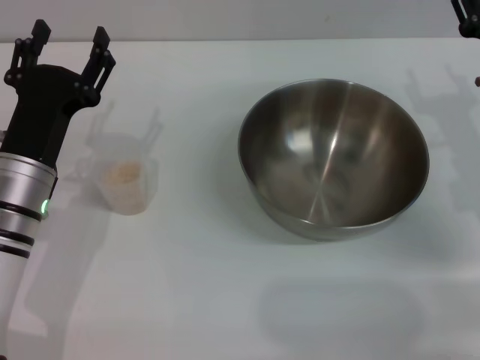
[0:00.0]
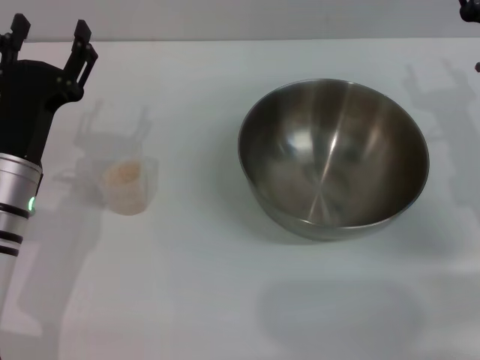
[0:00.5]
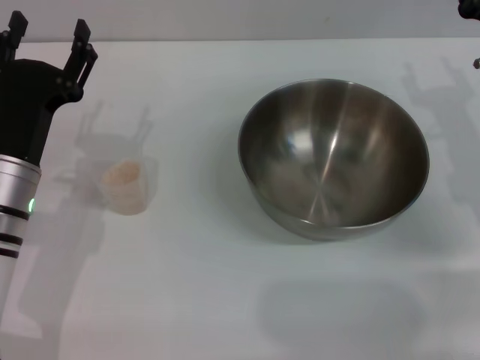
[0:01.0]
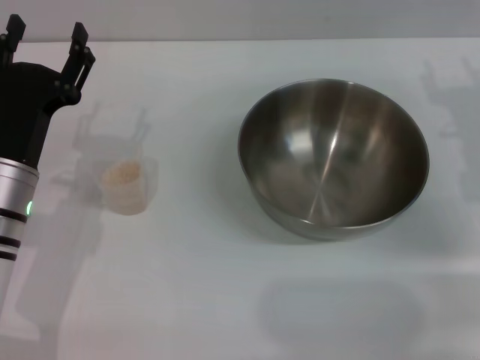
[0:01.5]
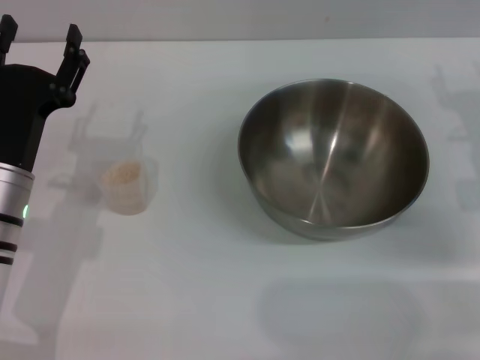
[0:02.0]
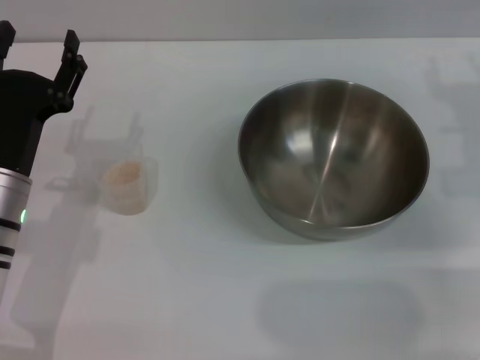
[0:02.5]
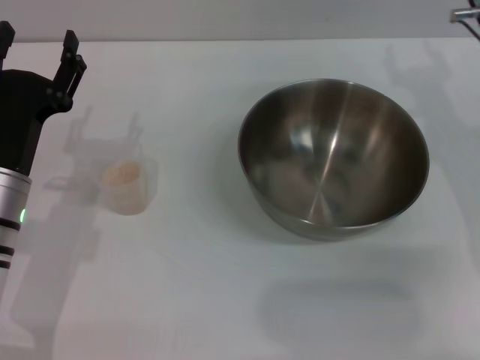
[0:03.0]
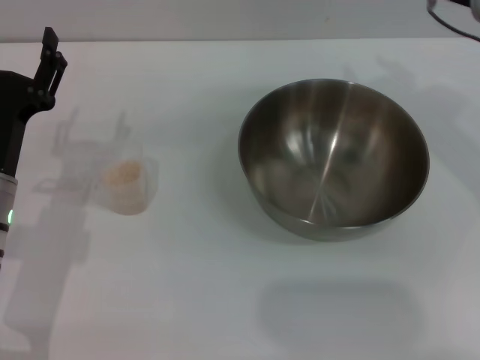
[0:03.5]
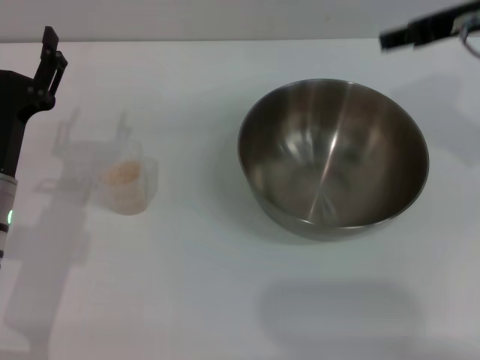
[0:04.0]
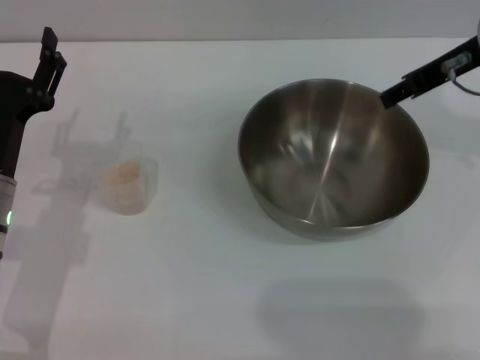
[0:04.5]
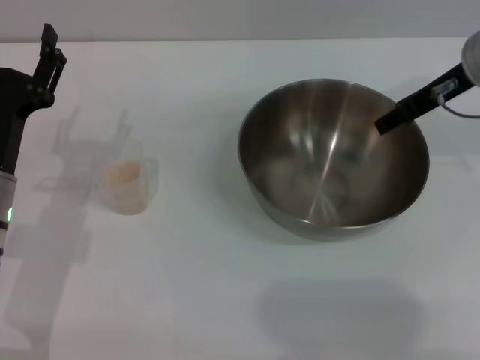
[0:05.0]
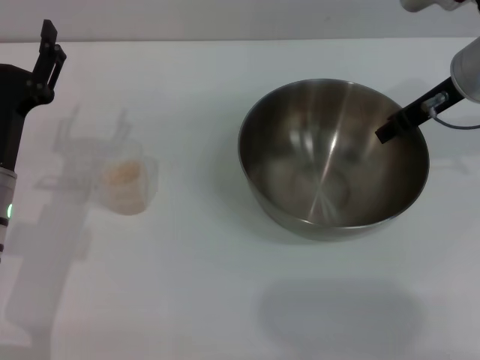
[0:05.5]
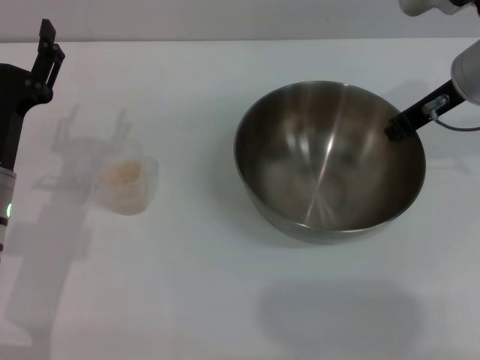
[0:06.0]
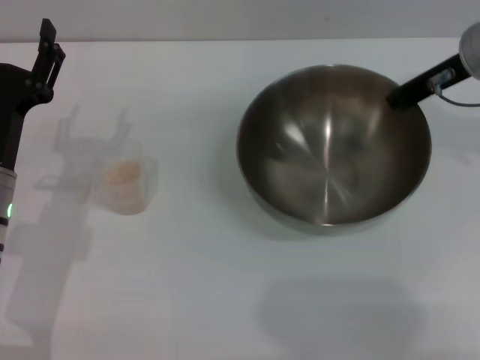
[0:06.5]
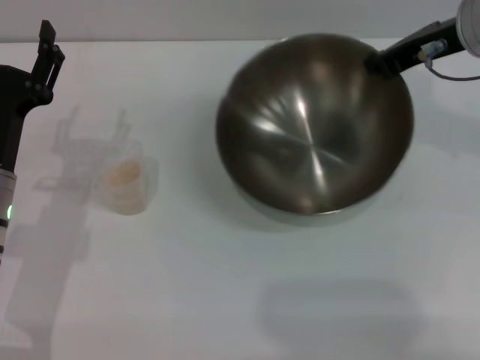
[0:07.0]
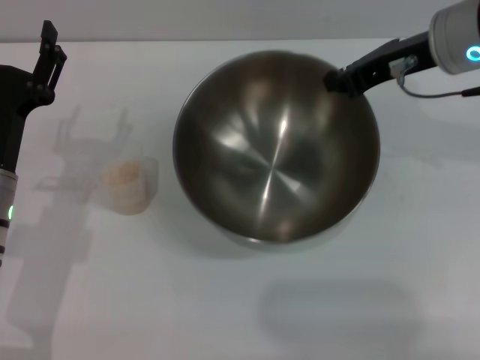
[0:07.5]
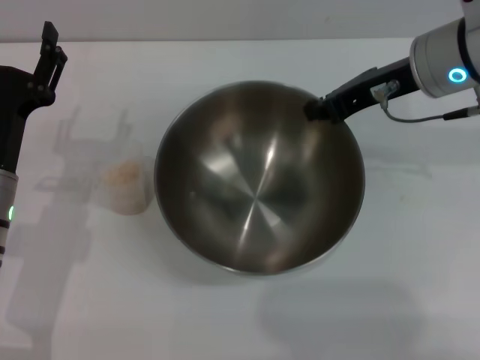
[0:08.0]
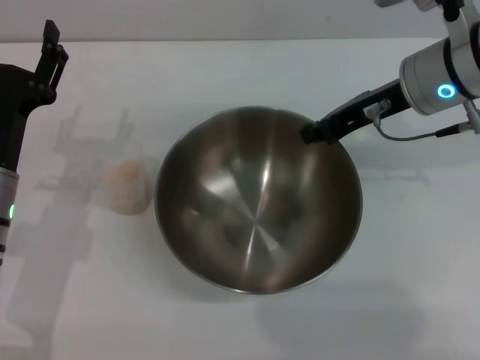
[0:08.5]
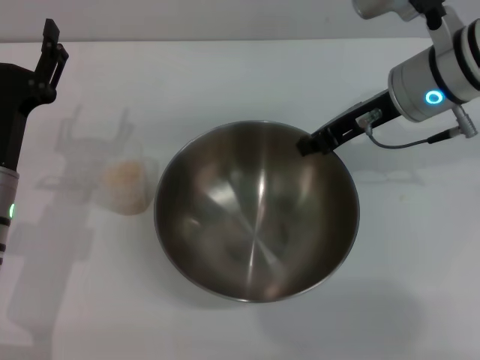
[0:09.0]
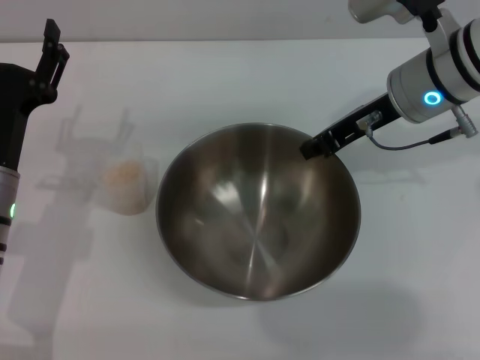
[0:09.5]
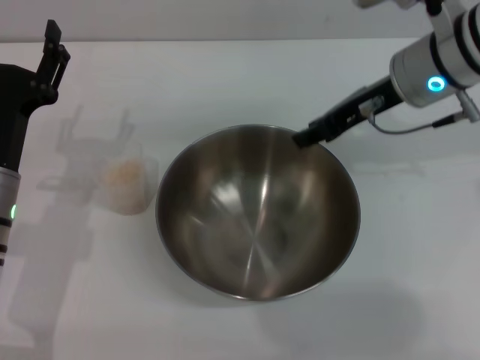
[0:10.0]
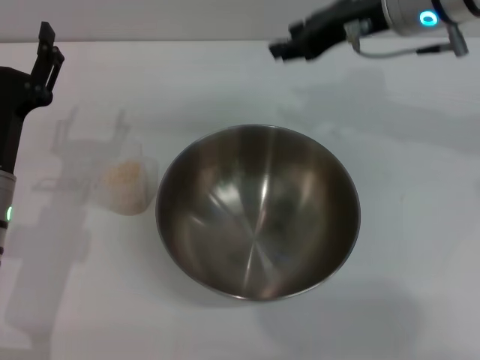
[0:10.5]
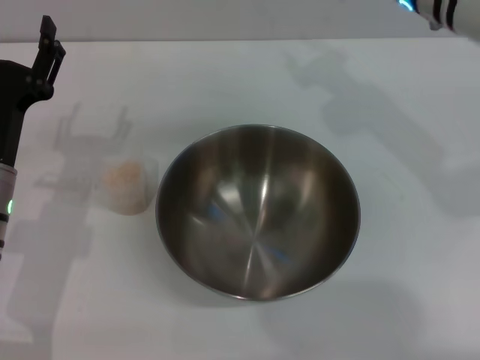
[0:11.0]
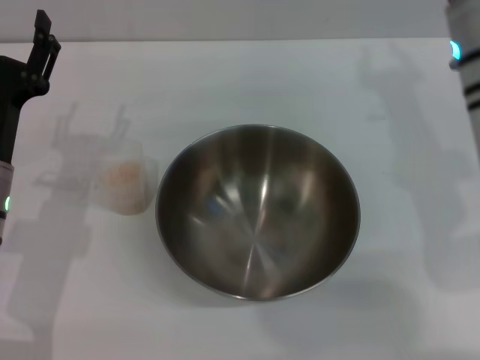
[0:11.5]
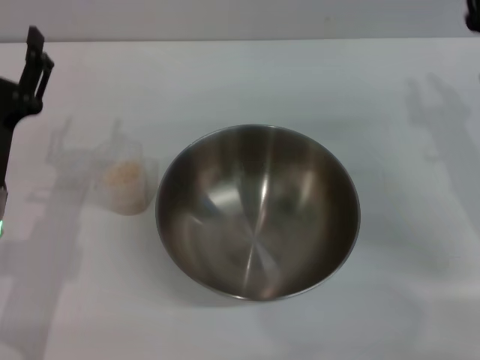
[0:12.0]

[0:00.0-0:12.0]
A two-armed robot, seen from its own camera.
Task of the whole recording: Place the bowl in the middle of the table with one hand and pour the rice from the grain cup into it with the other hand.
Step, 0:00.0 to 0:07.0: Pick up the bowl with the right gripper.
Step, 0:07.5 to 0:10.0: Place the bowl in the center of view with the right gripper.
0:00.0 to 0:02.0: The grippers make only small movements.
0:02.0 to 0:04.0: The right gripper travels upward by approximately 15 cm.
0:04.0 to 0:06.0: The right gripper shifts some 10 cm downward, and closes.
0:10.0 to 0:12.0: The right gripper shifts about 15 cm downward, to the right and backward.

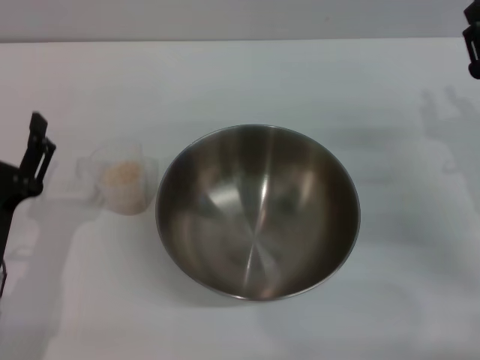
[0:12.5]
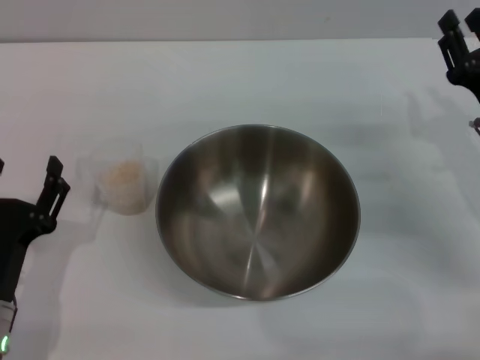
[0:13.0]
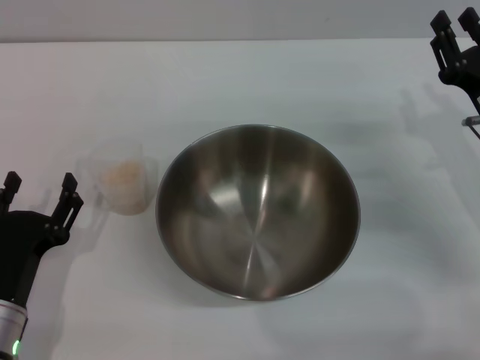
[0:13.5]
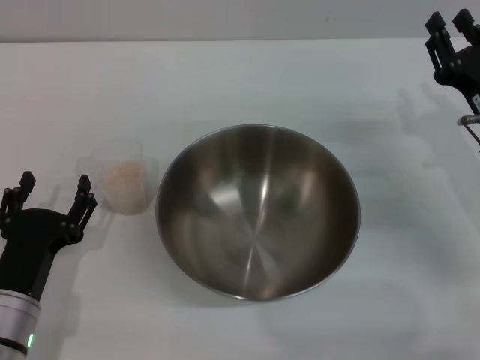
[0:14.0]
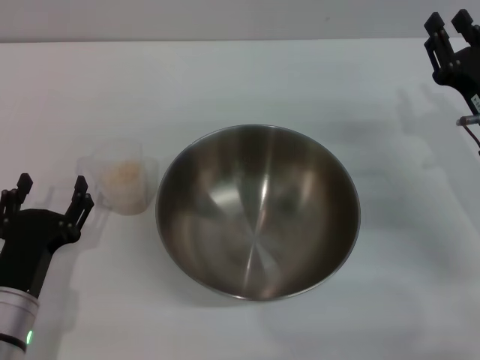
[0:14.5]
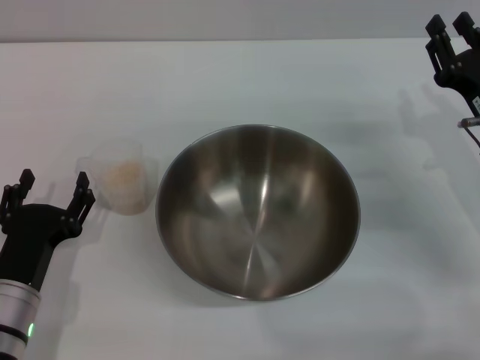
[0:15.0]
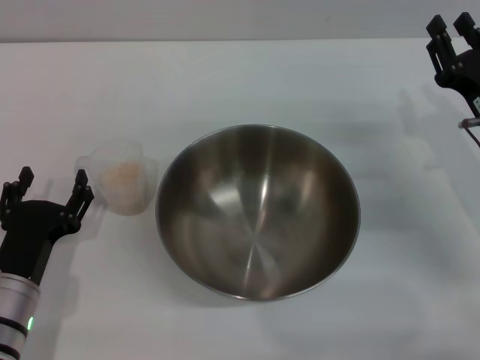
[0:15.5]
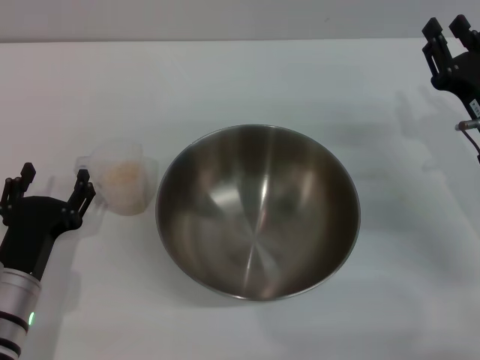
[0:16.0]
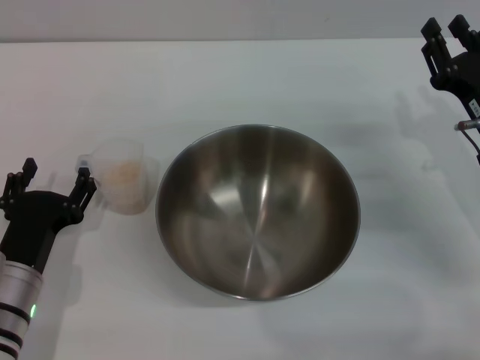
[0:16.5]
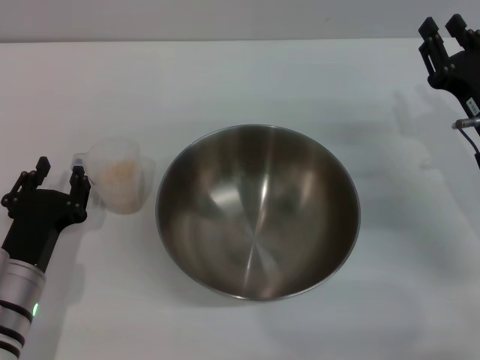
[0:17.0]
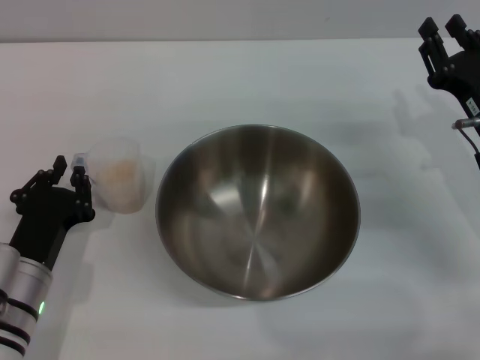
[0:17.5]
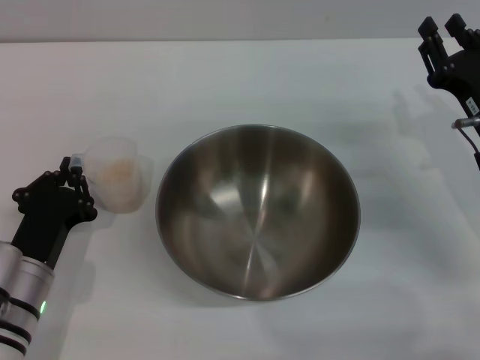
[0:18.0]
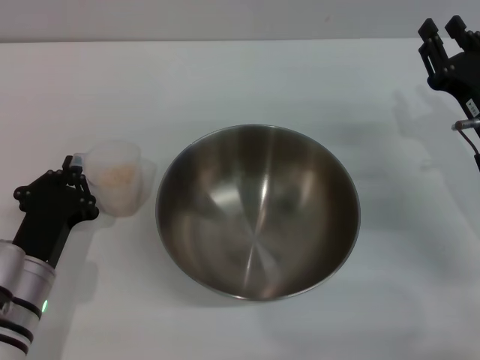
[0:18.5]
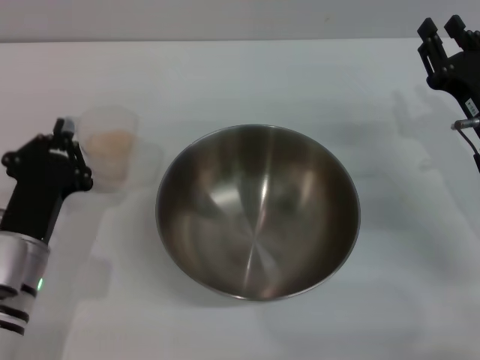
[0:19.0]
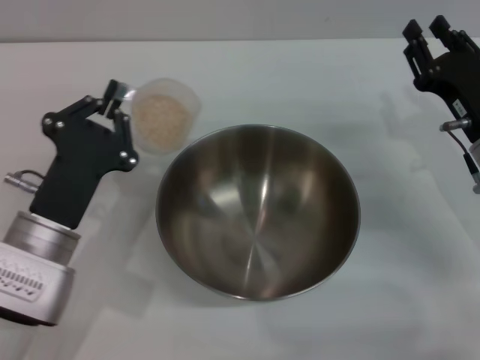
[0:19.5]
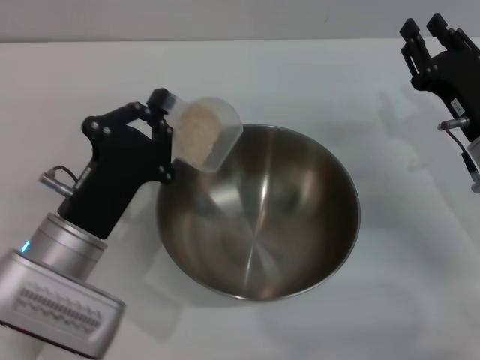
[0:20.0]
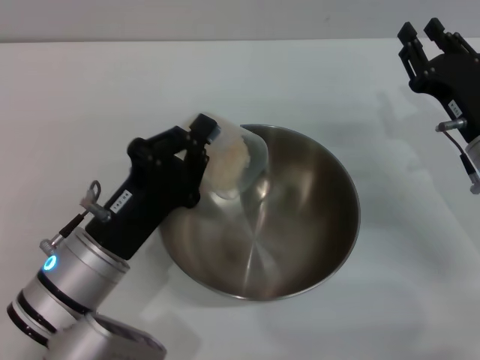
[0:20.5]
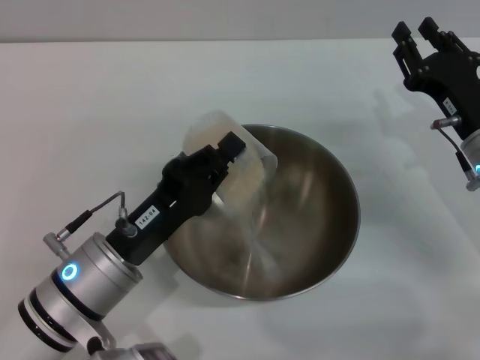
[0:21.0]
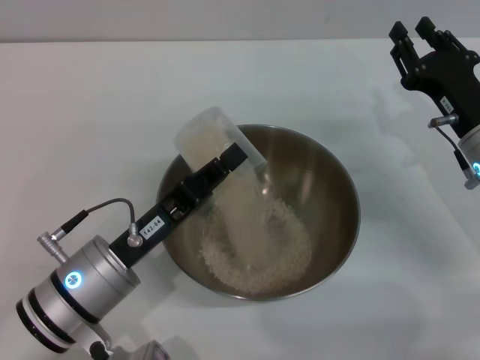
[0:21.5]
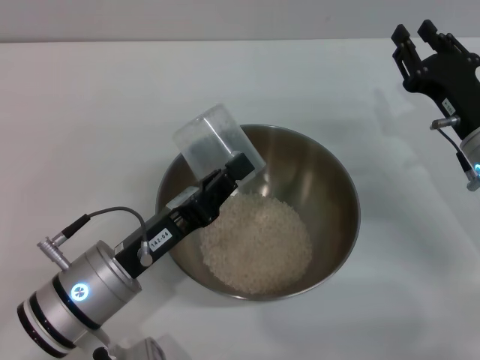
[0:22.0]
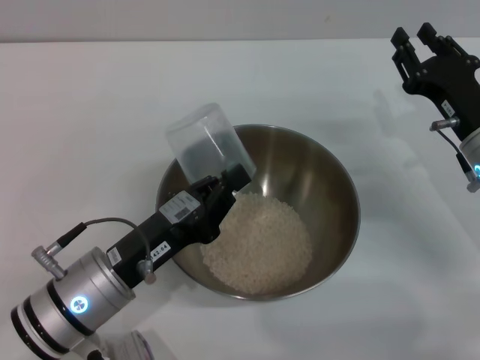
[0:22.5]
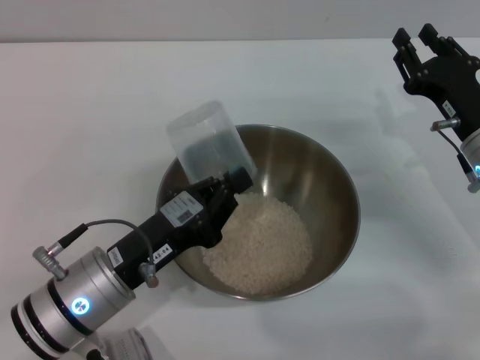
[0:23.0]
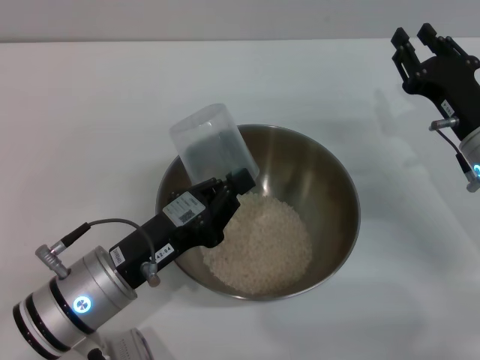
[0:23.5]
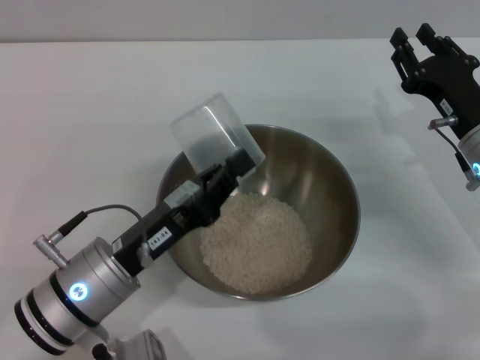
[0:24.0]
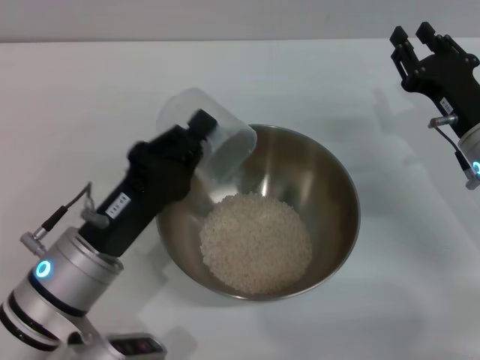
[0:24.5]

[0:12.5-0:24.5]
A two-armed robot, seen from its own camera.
Task of the whole recording: Place the bowl in the middle of the table with one hand and pour the rice from the grain cup into it with the other hand.
Step, 0:12.5 to 0:19.0: Pick up the cup with rice in it with the left gripper.
Step, 0:19.5 to 0:22.5: Pour the rice from the cup into the bowl with the left gripper.
0:12.5 to 0:14.5: There are only small adjustments of the grippers.
0:14.5 to 0:16.5: The grippers make only small movements.
0:16.5 to 0:18.5: The left gripper closes up.
0:18.5 to 0:20.5: The left gripper is displaced to the right and upward by about 10 cm.

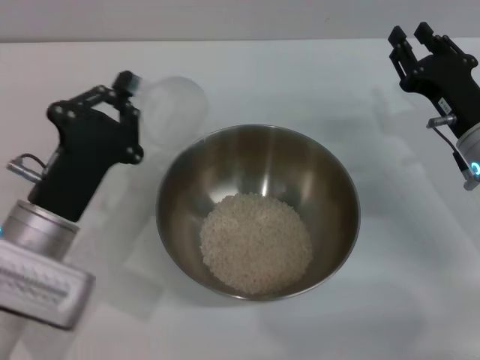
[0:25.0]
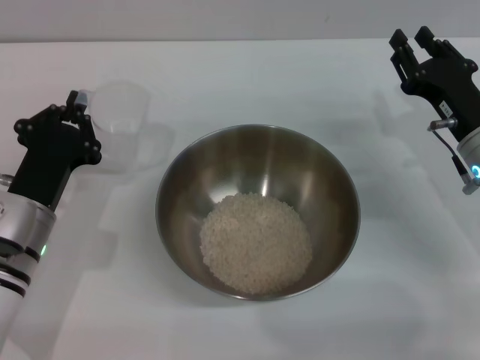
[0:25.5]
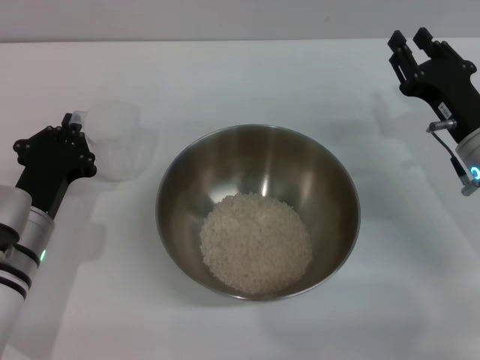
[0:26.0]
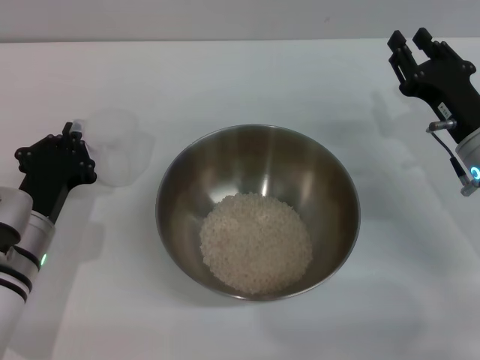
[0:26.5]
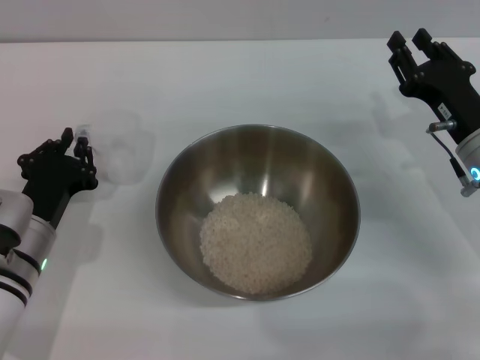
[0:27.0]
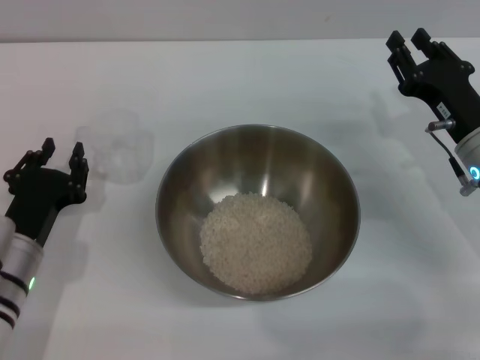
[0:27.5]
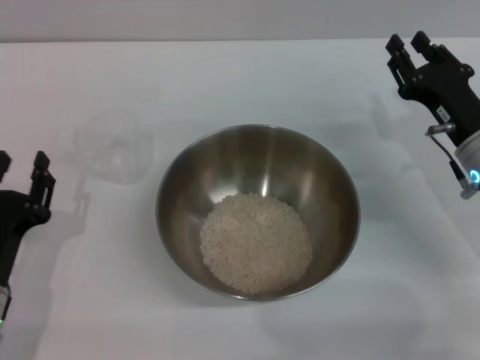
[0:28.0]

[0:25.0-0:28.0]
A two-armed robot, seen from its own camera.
Task of the whole recording: Place the bowl in the middle of the table with one hand and pour the rice from the grain cup into it with the other hand.
Step, 0:25.0 to 0:27.5: Place the cup on the table with the left gripper.
0:25.0 to 0:26.5: The left gripper shifts by approximately 5 cm.
0:26.5 to 0:28.0: The left gripper heads backward, covering roughly 5 cm, and opens its fingers.
